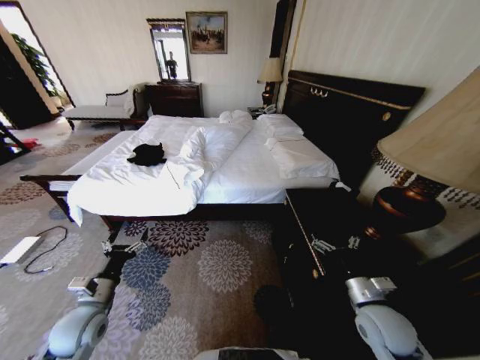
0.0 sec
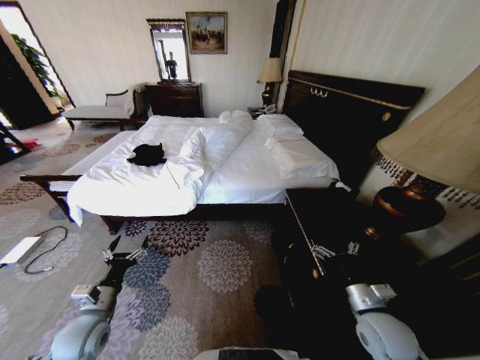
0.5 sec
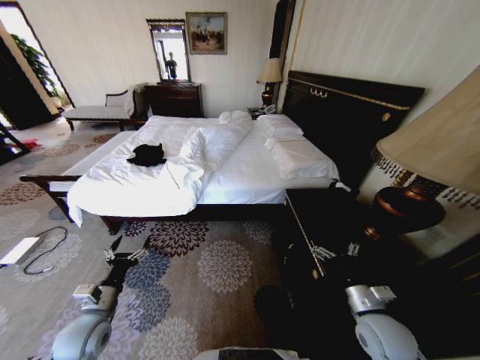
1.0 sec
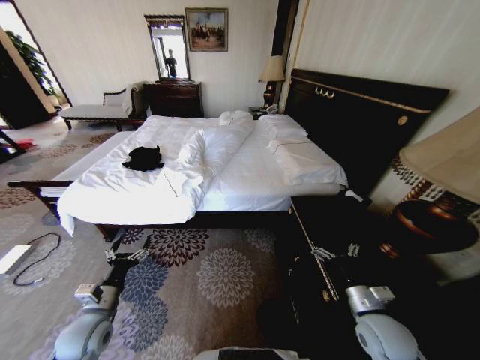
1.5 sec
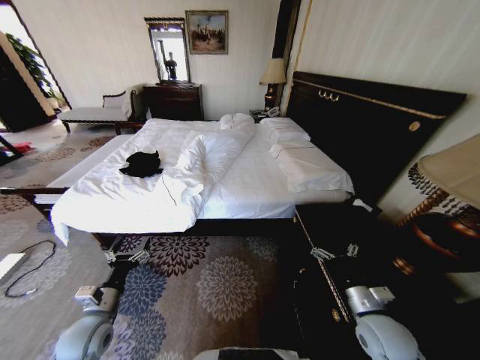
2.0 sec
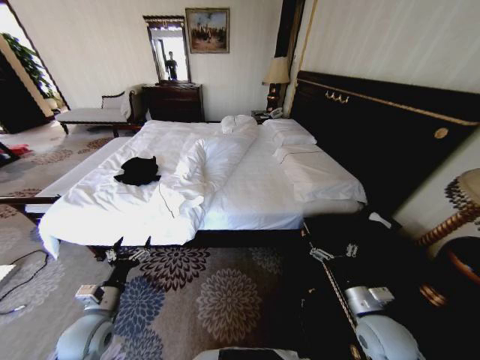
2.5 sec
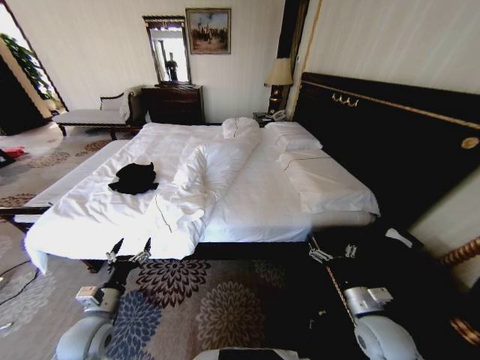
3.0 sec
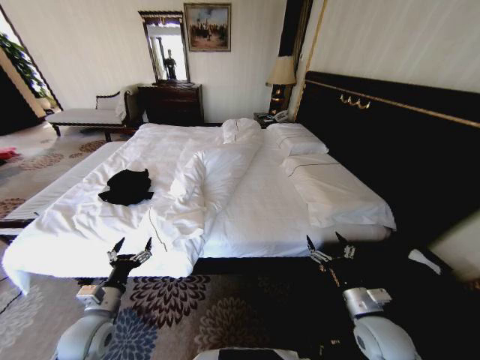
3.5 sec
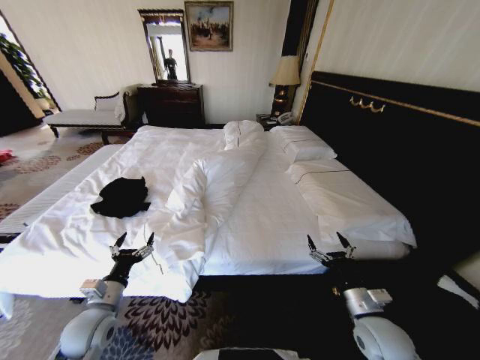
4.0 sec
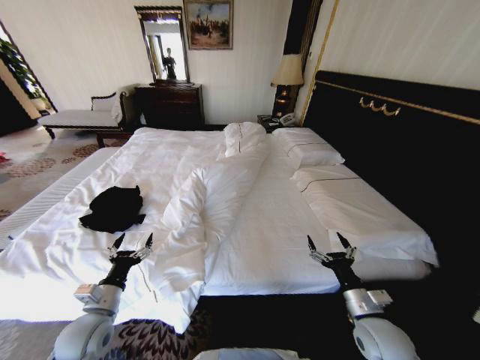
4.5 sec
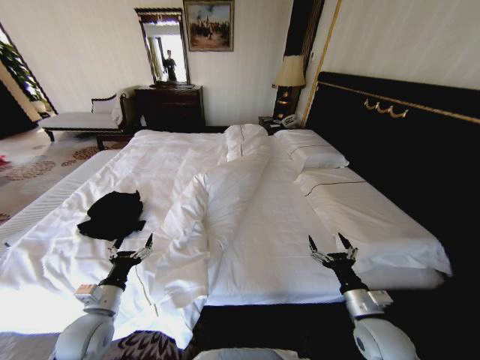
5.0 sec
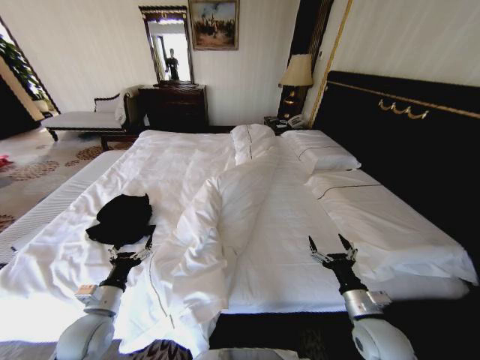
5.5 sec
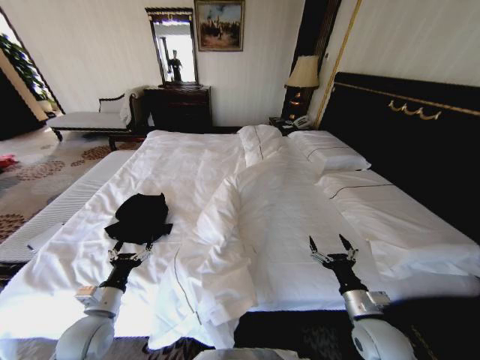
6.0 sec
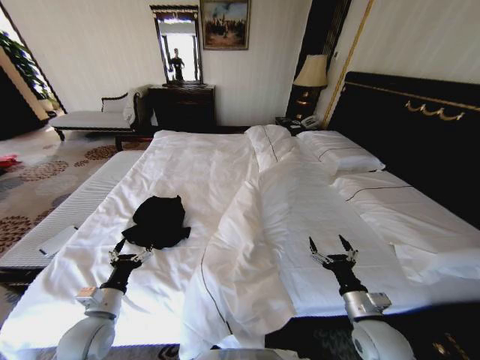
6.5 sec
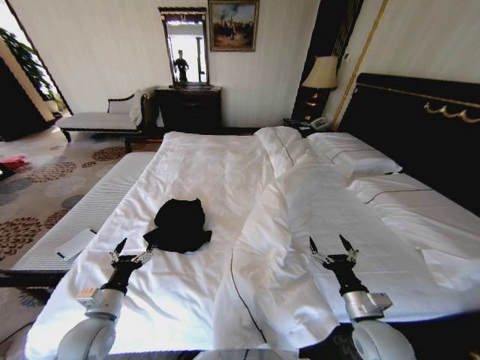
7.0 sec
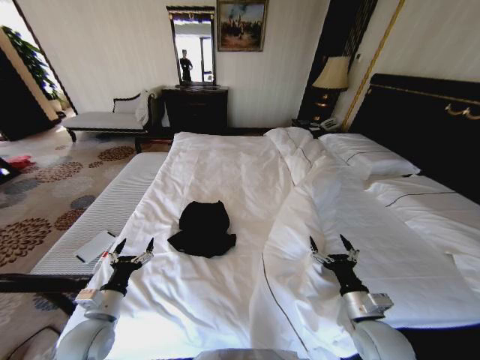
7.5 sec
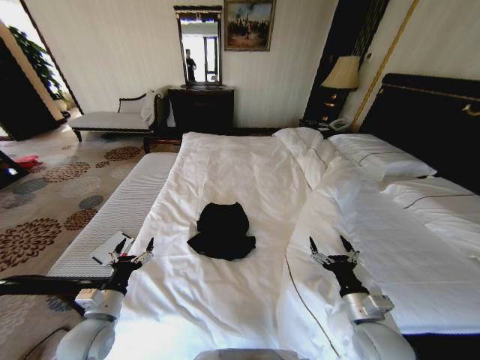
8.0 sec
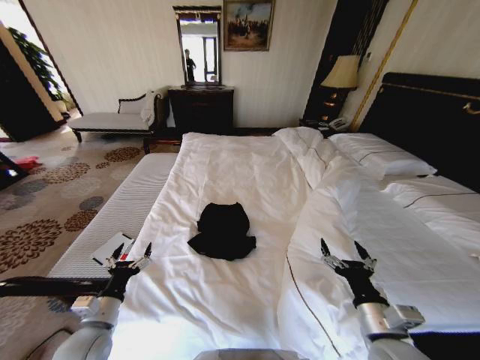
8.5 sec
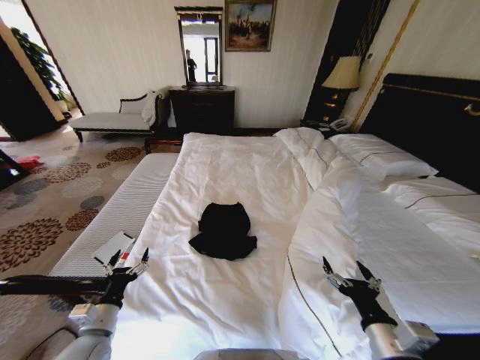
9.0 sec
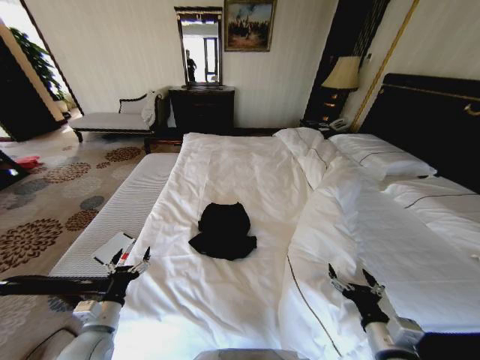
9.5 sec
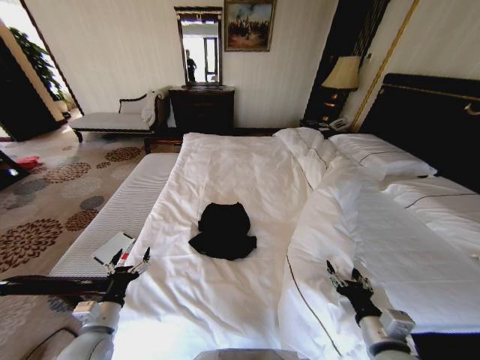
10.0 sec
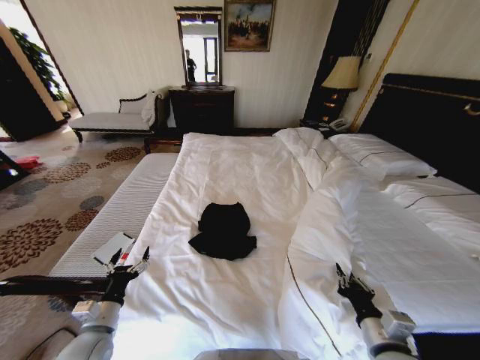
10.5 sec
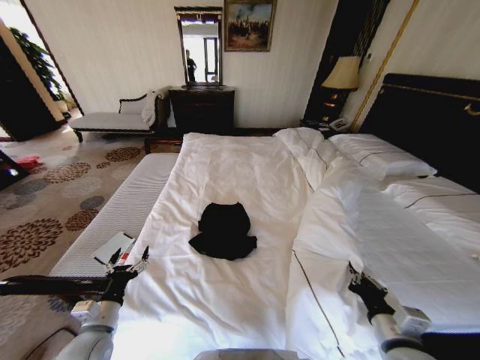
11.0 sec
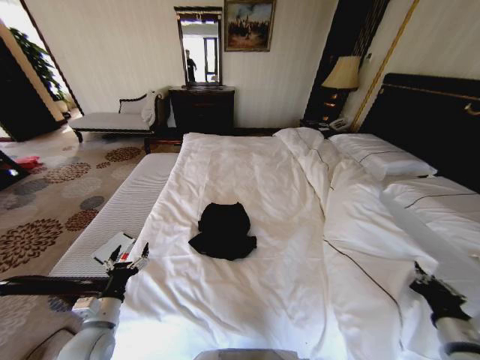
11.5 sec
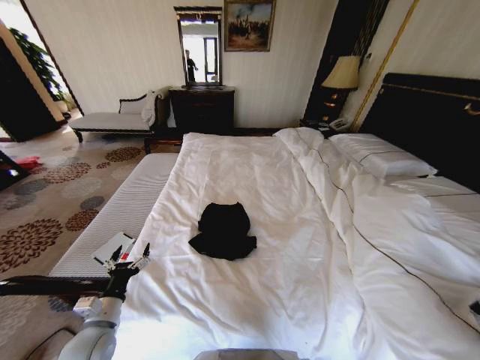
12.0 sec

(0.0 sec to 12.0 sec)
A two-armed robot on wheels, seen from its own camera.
Task of the whole recording: Fold the clothes on the bed.
8.0 sec - 10.0 sec: The right gripper is displaced backward by approximately 5 cm.
10.0 sec - 12.0 sec: The right gripper goes roughly 20 cm to the right, and closes up.

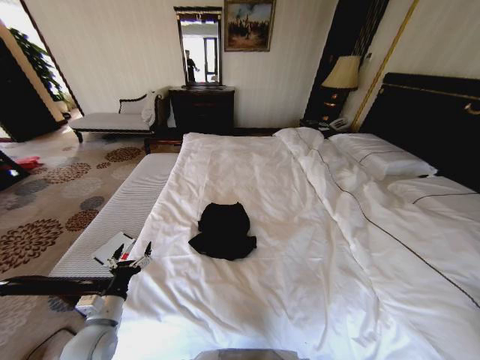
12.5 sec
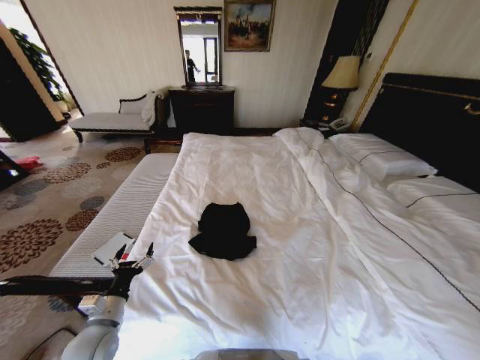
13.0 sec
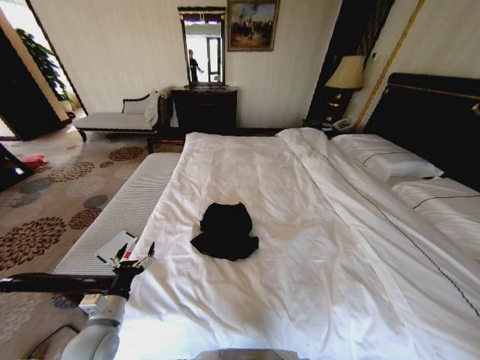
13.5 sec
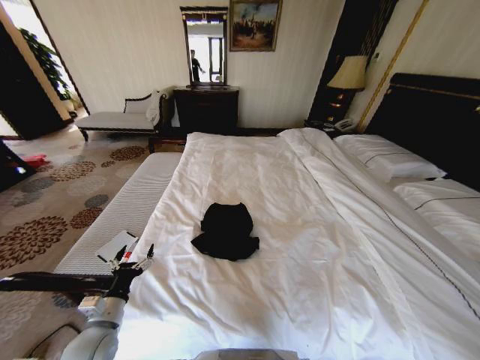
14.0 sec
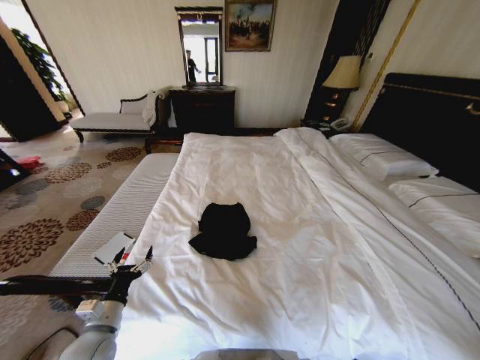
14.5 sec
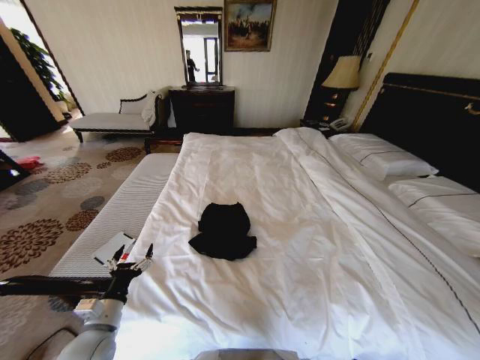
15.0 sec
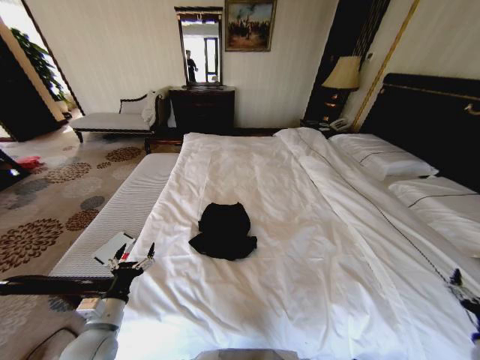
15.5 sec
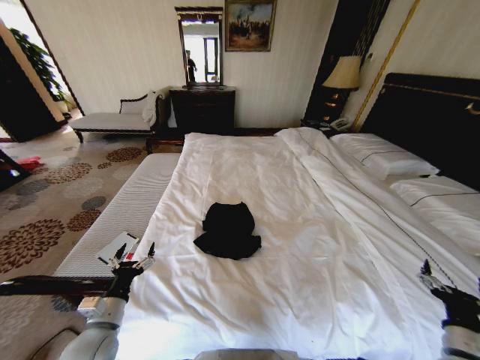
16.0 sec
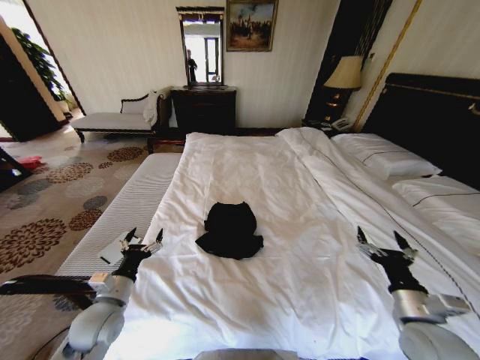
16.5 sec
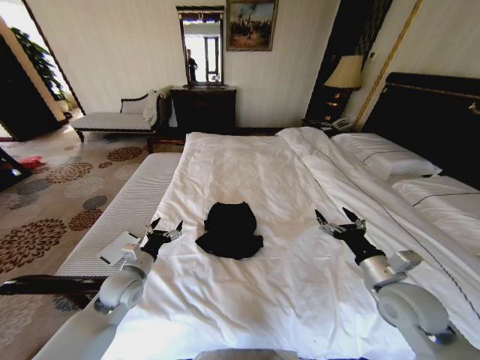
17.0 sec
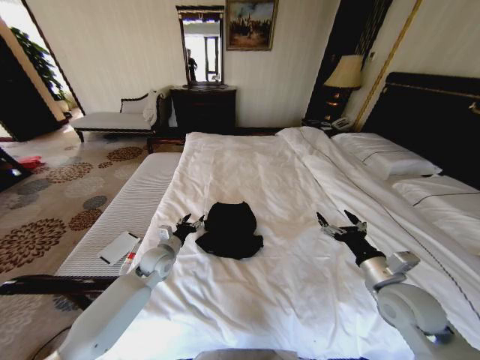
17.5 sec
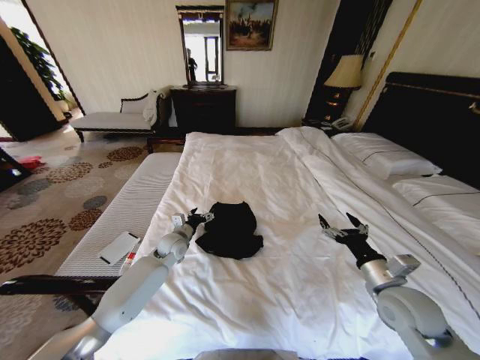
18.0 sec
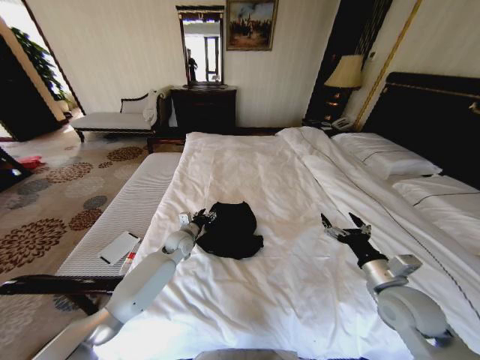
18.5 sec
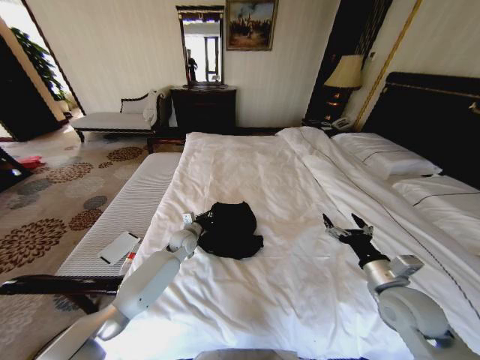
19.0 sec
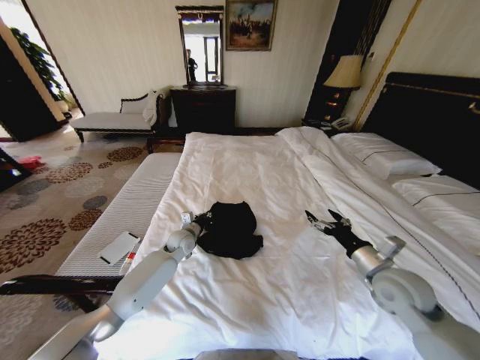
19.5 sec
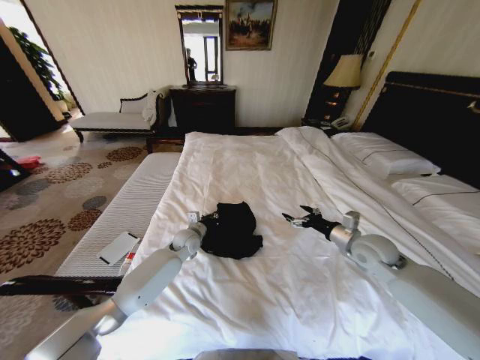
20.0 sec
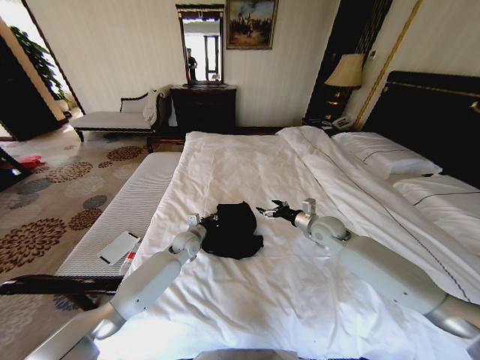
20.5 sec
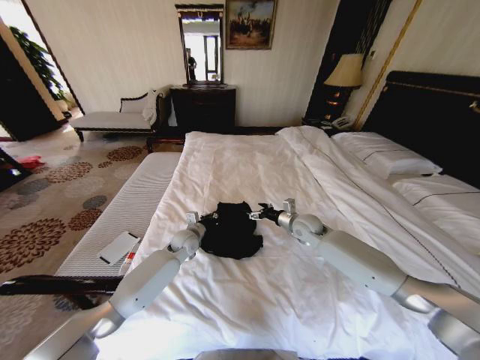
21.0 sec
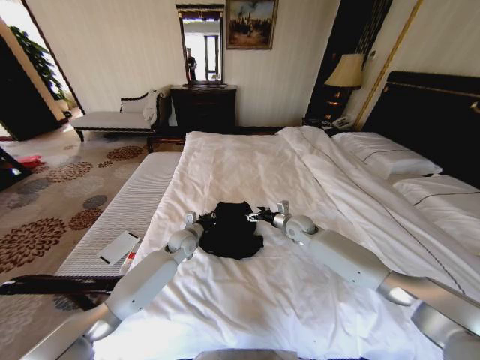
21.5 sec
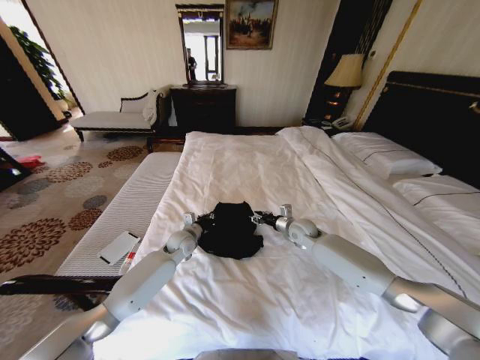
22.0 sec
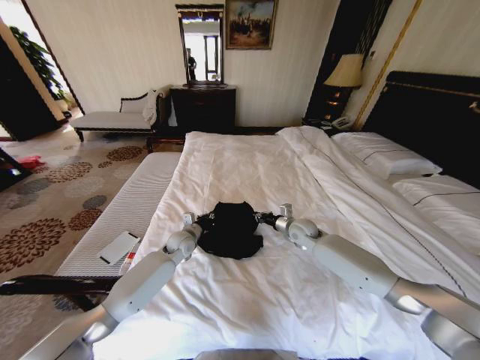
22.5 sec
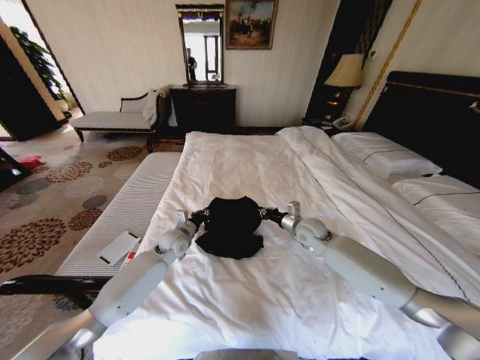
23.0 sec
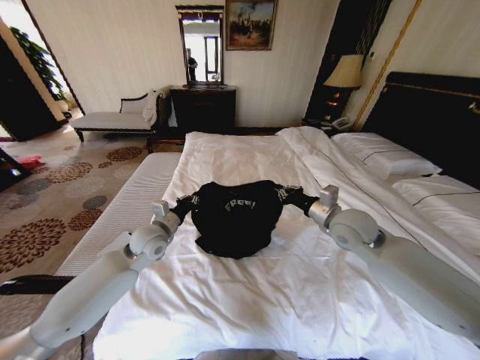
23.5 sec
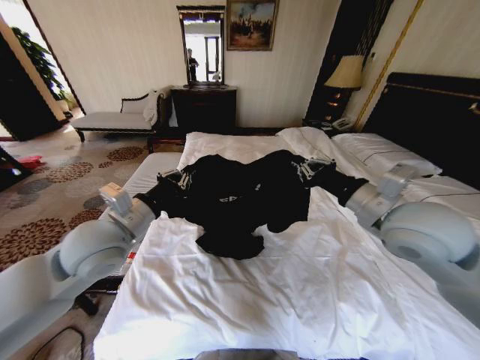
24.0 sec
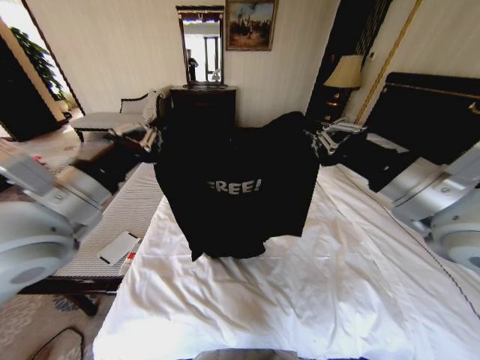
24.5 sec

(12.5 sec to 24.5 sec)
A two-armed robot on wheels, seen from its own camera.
Task of the whole recording: Fold the clothes on the bed.
12.5 sec - 14.5 sec: The right gripper goes approximately 10 cm downward and backward, and opens.
14.5 sec - 16.5 sec: The left gripper ends up some 5 cm from where it was. The right gripper goes roughly 35 cm to the left, forward and upward, and opens up.
16.5 sec - 18.5 sec: The left gripper is displaced forward and to the right by about 30 cm; the right gripper moves forward, approximately 5 cm.
18.5 sec - 20.5 sec: The left gripper closes. Meanwhile the right gripper shifts about 20 cm forward.
20.5 sec - 22.5 sec: The right gripper moves to the left, about 5 cm, and closes up.
22.5 sec - 24.5 sec: The two grippers go approximately 40 cm upward and backward.

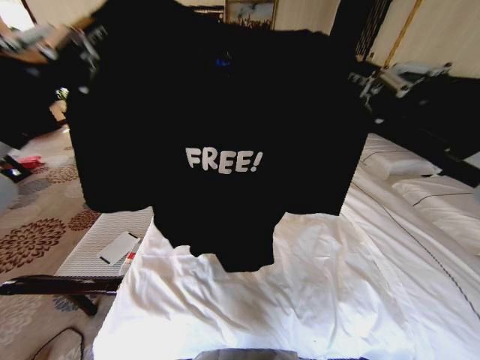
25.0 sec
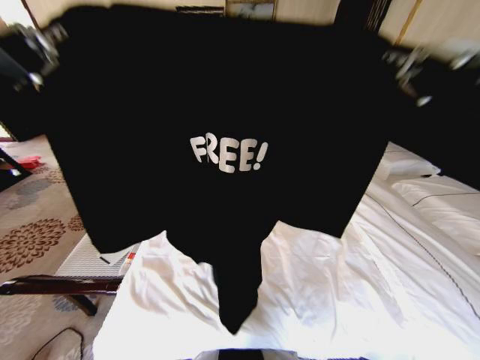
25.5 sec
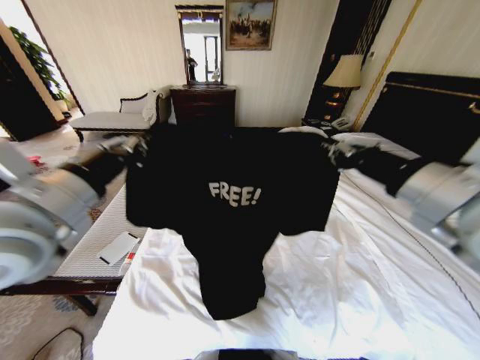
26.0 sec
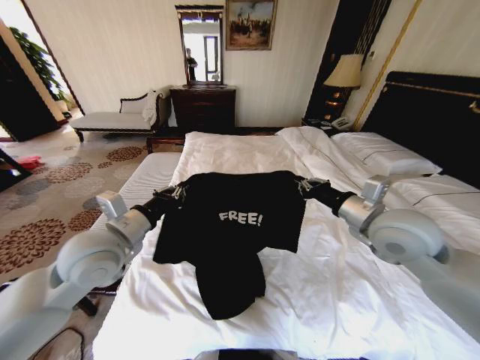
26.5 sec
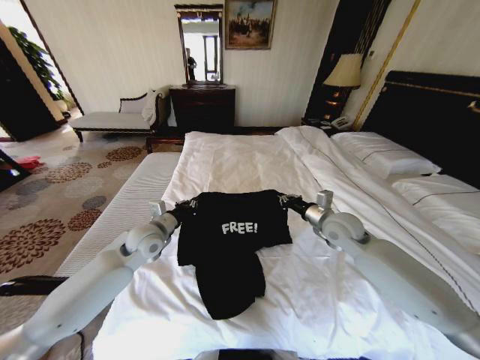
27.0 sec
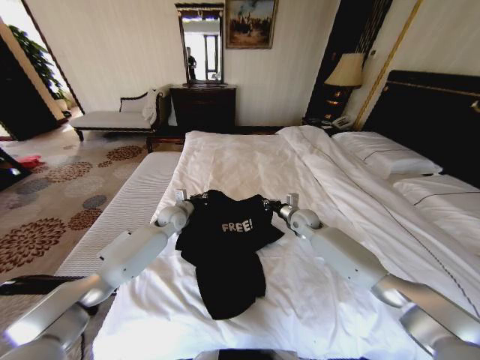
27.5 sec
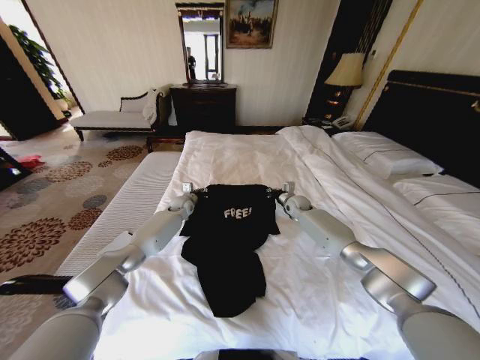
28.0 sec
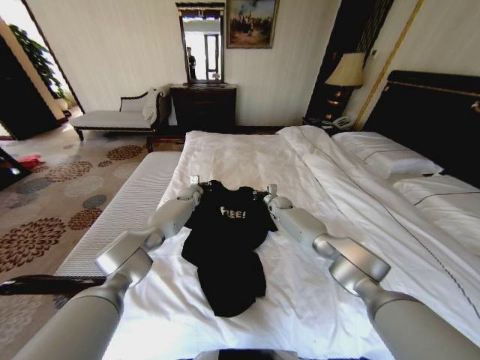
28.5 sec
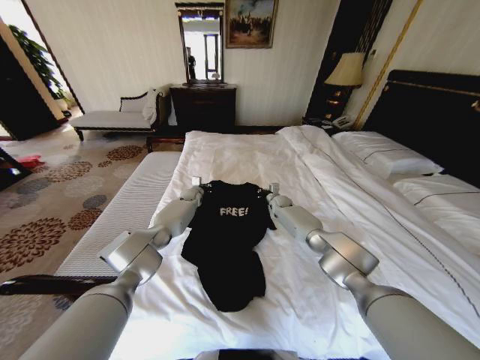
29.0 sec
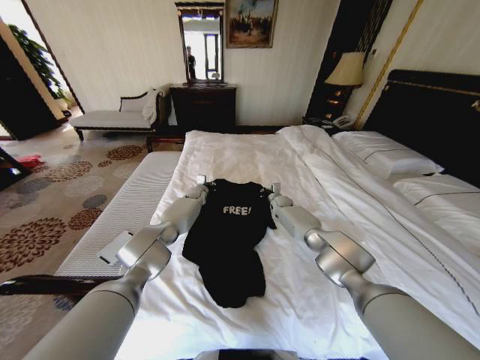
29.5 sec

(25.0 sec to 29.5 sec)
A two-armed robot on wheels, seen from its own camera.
Task of the whole recording: Fold the clothes on the bed.
25.0 sec - 27.0 sec: Both grippers travel together downward and forward, roughly 35 cm.
27.0 sec - 29.5 sec: The left gripper moves forward, approximately 30 cm. Meanwhile the right gripper goes some 30 cm forward and downward.
